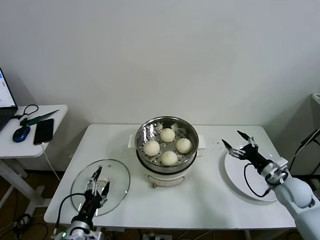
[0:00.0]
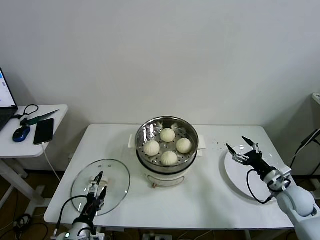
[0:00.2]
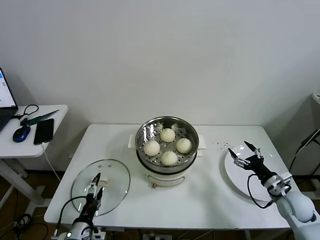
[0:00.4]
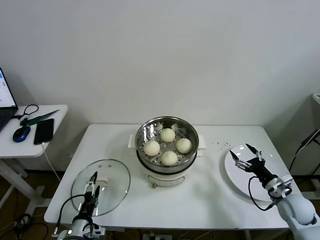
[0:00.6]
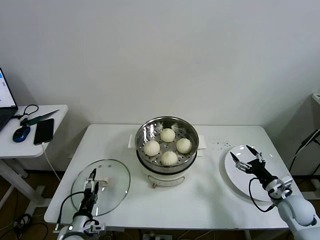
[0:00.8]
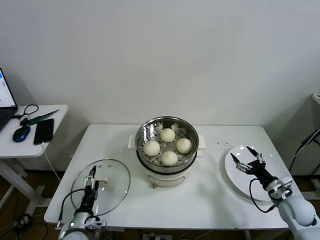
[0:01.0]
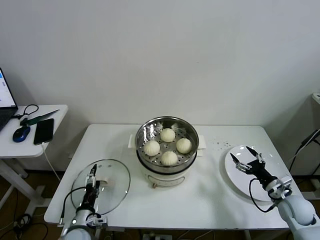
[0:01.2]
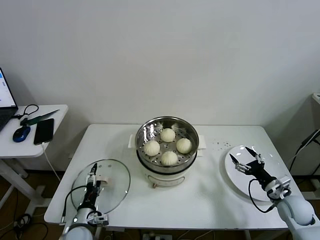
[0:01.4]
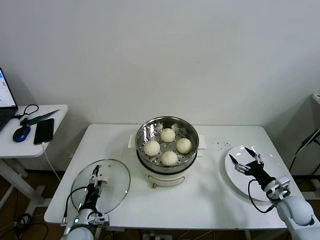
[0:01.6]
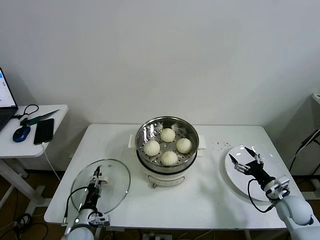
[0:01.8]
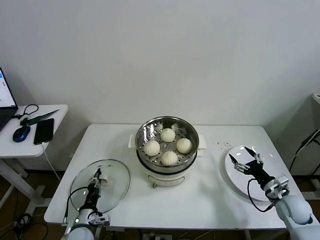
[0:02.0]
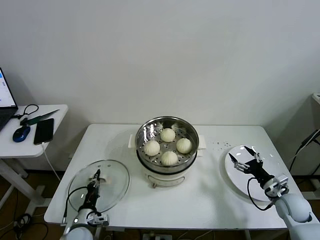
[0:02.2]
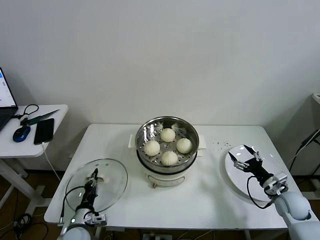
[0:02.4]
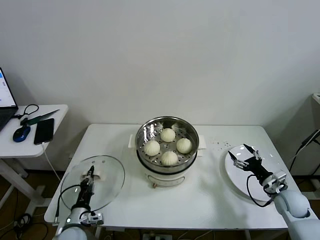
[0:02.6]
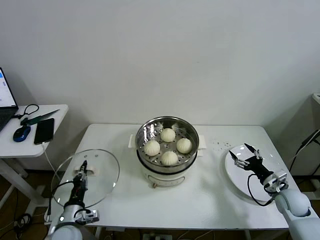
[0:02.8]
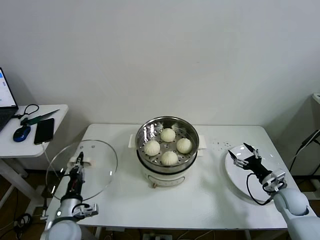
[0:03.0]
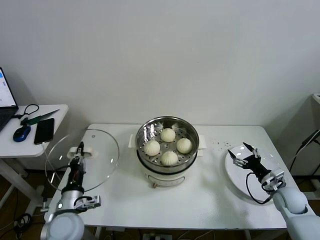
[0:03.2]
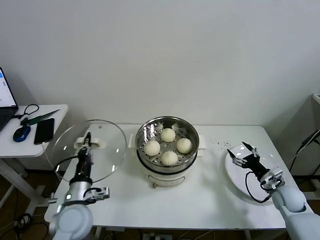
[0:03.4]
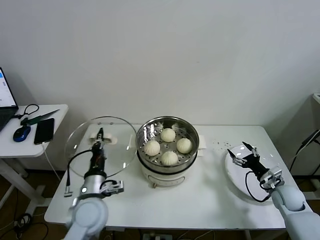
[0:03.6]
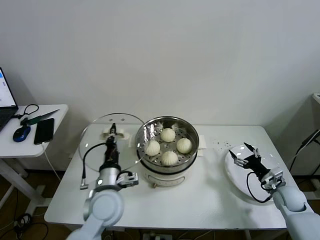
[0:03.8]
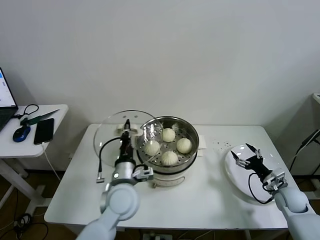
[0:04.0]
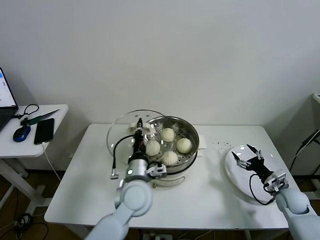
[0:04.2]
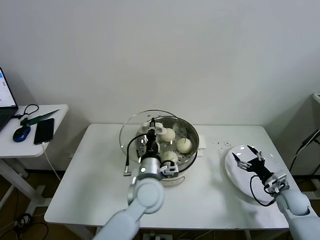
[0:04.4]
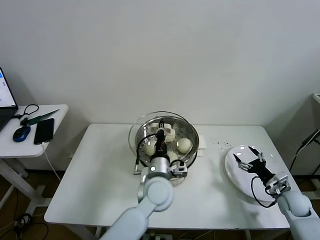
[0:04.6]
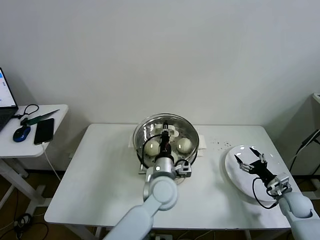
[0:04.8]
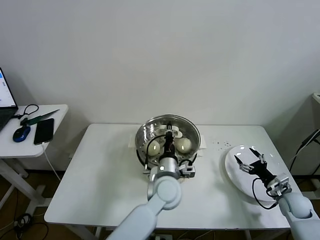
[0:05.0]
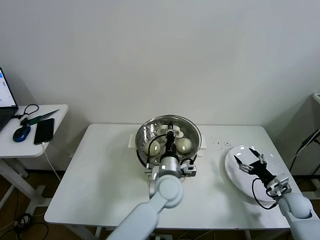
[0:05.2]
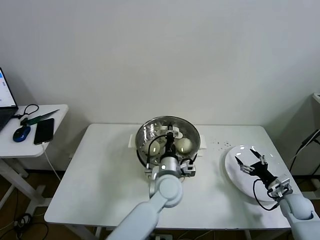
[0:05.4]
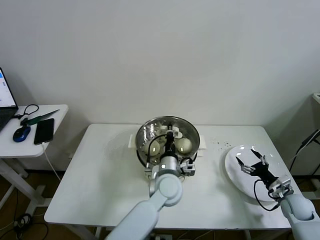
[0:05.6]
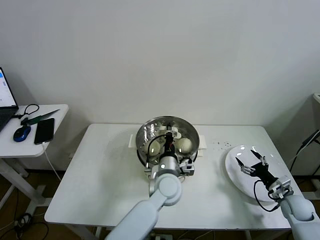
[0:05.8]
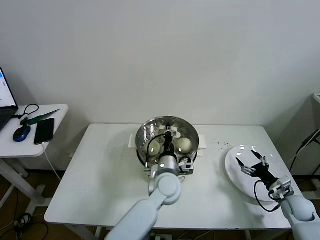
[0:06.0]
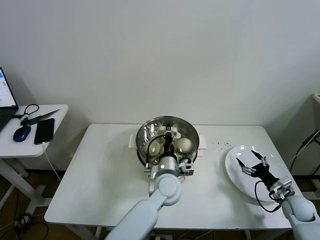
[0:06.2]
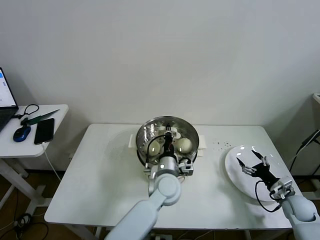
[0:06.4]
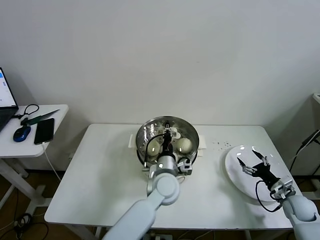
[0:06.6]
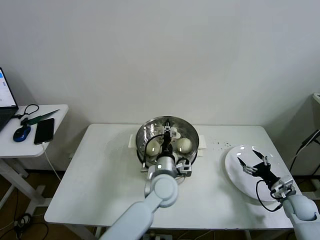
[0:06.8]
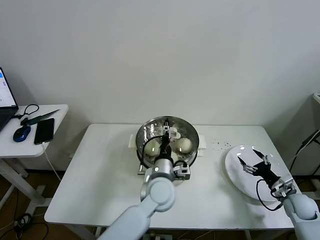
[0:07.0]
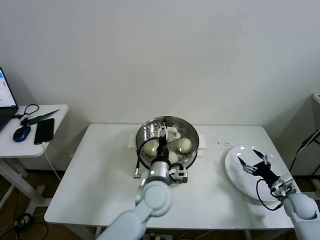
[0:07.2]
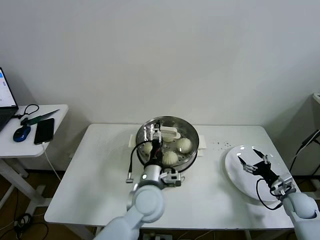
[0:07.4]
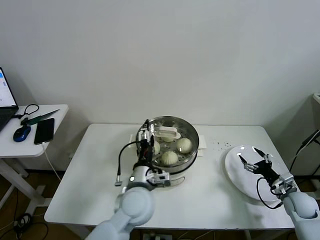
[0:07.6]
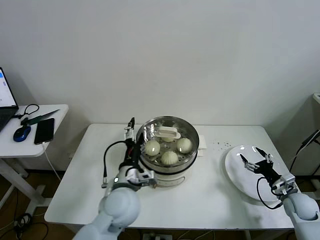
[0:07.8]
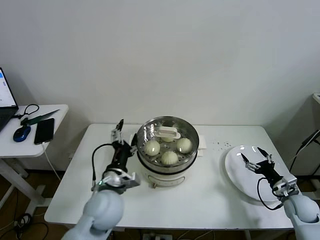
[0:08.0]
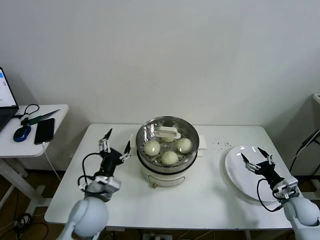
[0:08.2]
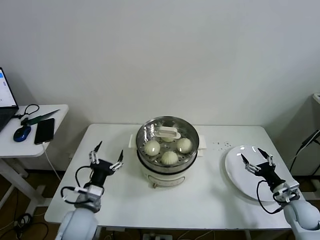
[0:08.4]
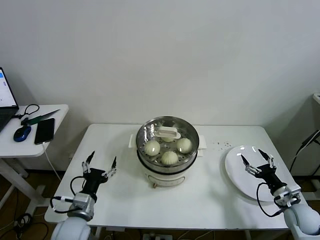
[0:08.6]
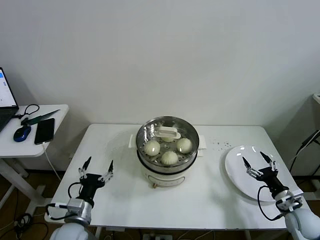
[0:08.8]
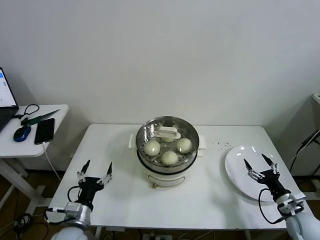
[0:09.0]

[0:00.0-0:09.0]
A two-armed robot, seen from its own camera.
Task of the whole recording: take steamed baozi put them in steamer then cover it.
Step, 0:00.0 to 0:02.0: Grasp the pot lid with left gripper.
Step, 0:02.4 to 0:06.8: Place the pot lid on the steamer with left gripper.
0:00.0 to 0:01.6: The left gripper moves downward and forward, approximately 10 cm, while the right gripper goes approximately 5 cm downward.
0:01.6 to 0:03.0: The left gripper moves upward, roughly 10 cm, and closes.
0:03.0 to 0:04.4: The left gripper travels to the right and upward by some 25 cm.
0:04.4 to 0:06.0: The left gripper is displaced to the right by approximately 5 cm.
0:06.0 to 0:07.6: The left gripper moves to the left and backward, roughly 10 cm, and opens up.
0:07.6 to 0:09.0: The left gripper travels to the left and downward by about 25 cm. Meanwhile the right gripper heads backward, covering approximately 5 cm.
